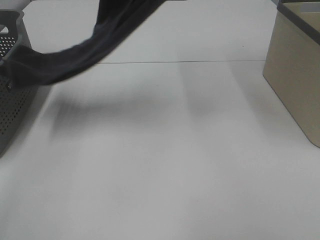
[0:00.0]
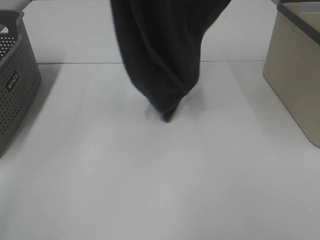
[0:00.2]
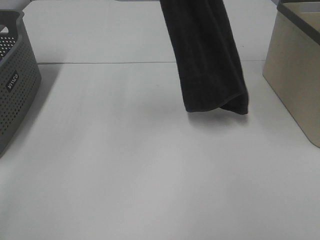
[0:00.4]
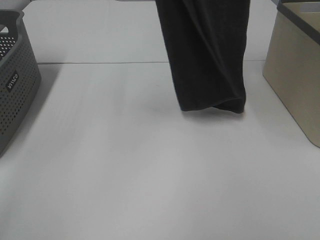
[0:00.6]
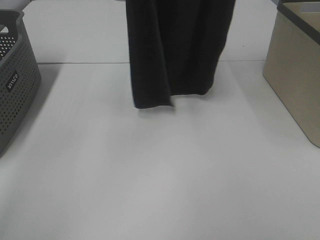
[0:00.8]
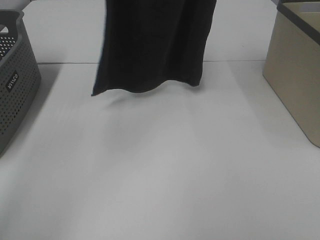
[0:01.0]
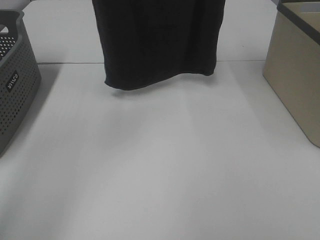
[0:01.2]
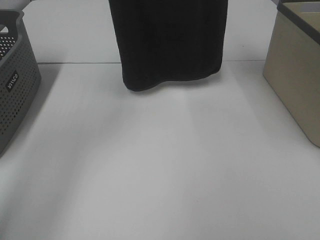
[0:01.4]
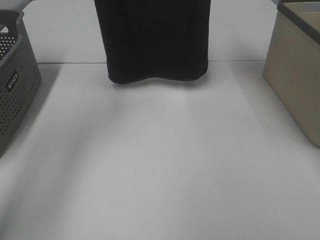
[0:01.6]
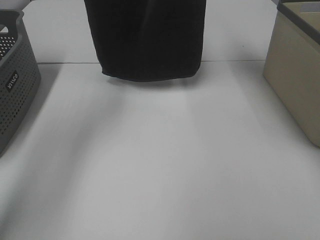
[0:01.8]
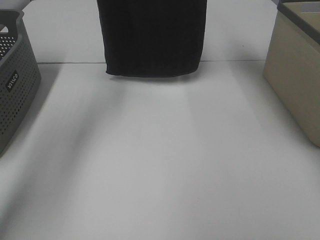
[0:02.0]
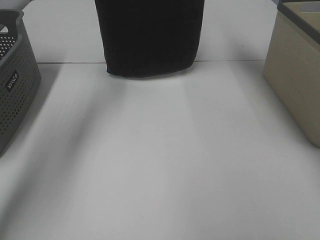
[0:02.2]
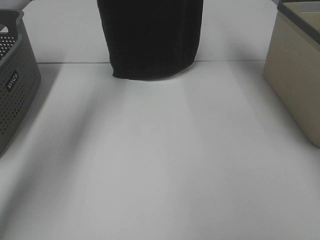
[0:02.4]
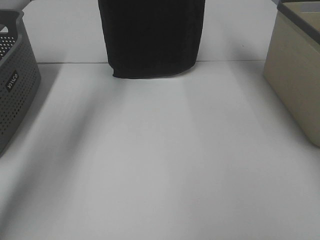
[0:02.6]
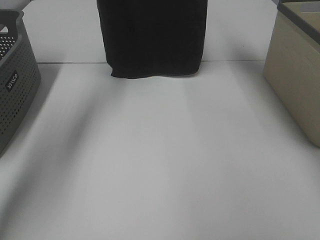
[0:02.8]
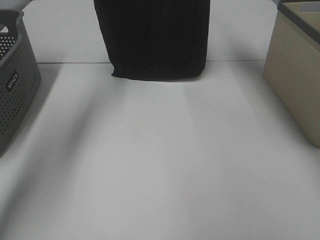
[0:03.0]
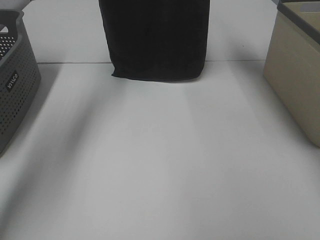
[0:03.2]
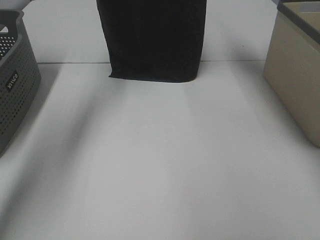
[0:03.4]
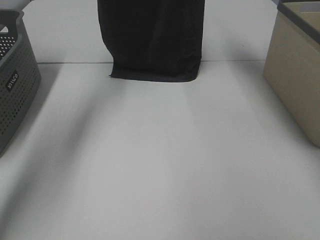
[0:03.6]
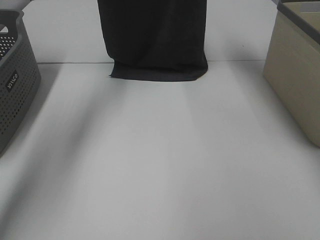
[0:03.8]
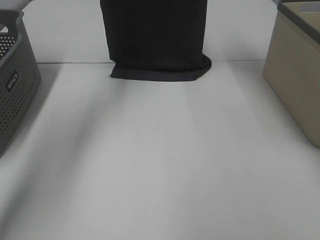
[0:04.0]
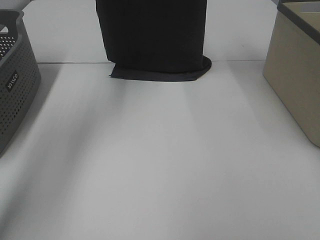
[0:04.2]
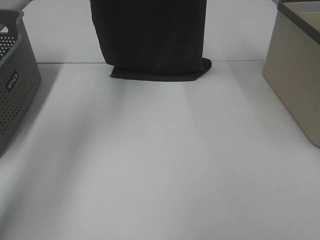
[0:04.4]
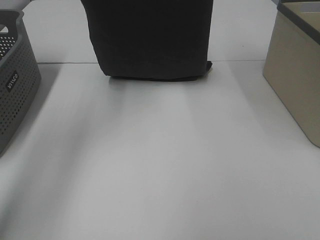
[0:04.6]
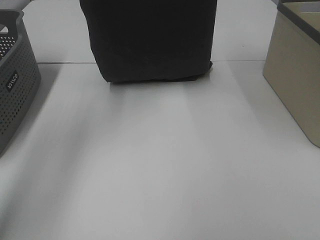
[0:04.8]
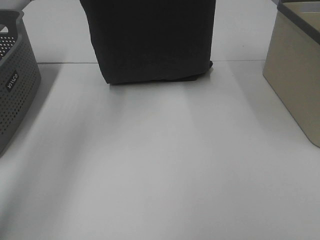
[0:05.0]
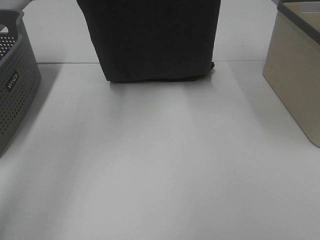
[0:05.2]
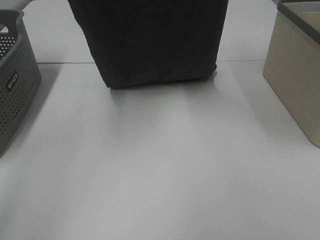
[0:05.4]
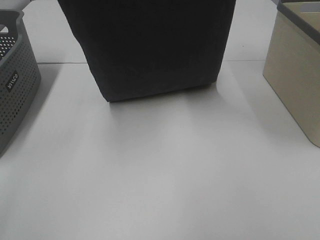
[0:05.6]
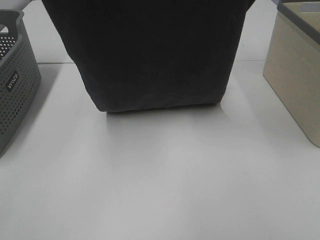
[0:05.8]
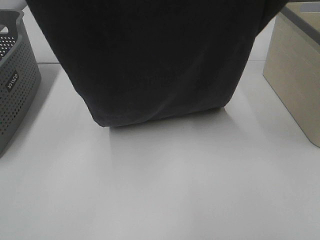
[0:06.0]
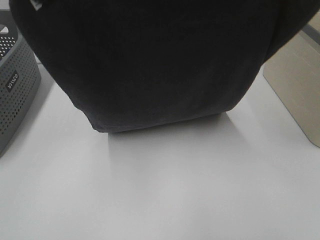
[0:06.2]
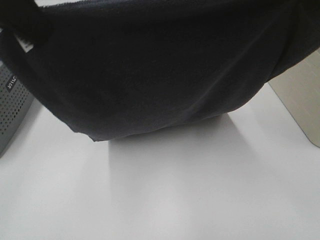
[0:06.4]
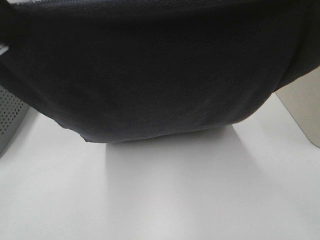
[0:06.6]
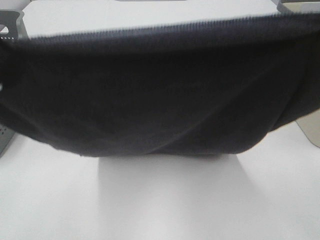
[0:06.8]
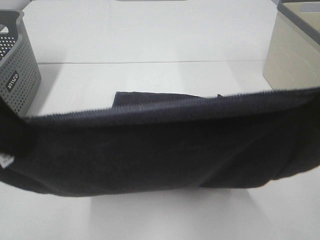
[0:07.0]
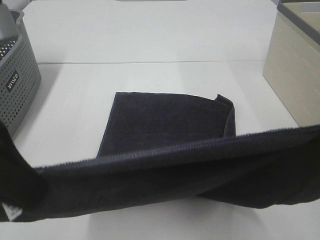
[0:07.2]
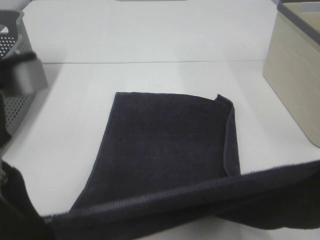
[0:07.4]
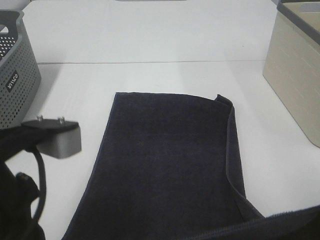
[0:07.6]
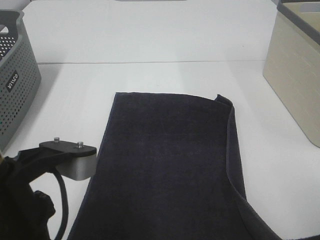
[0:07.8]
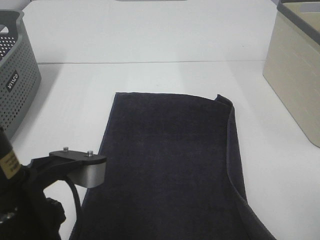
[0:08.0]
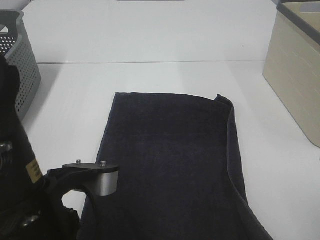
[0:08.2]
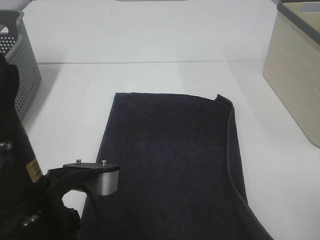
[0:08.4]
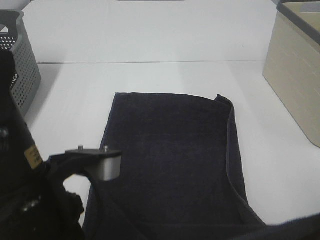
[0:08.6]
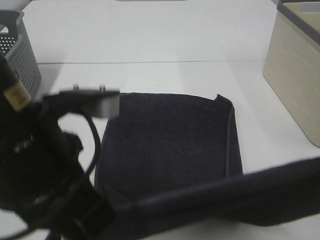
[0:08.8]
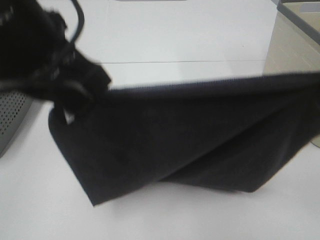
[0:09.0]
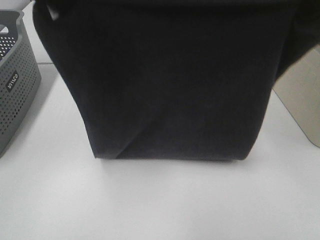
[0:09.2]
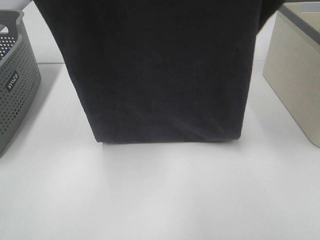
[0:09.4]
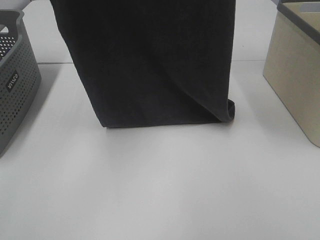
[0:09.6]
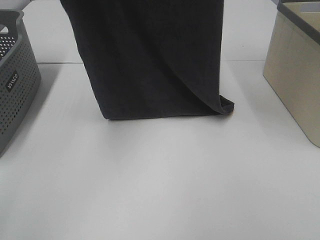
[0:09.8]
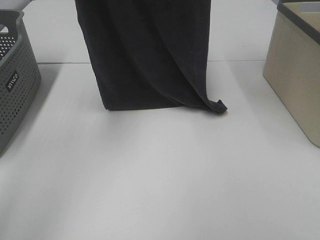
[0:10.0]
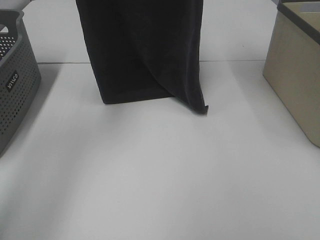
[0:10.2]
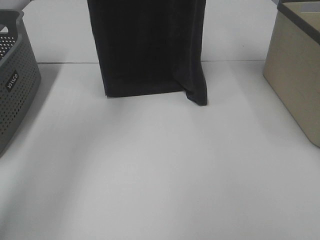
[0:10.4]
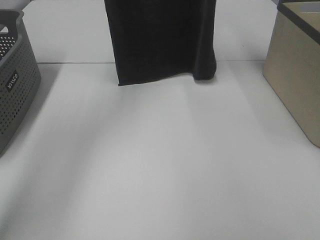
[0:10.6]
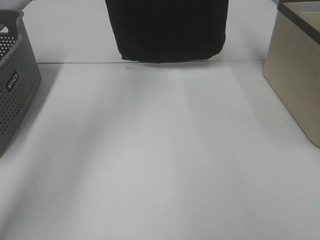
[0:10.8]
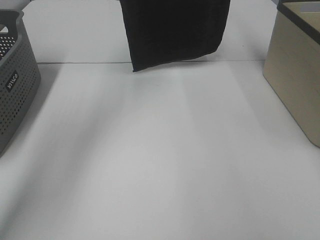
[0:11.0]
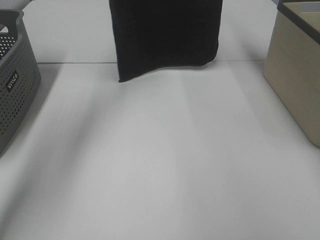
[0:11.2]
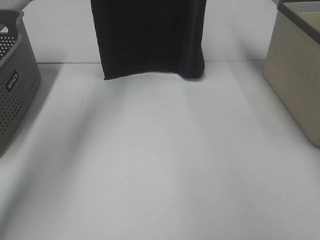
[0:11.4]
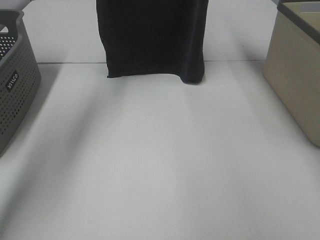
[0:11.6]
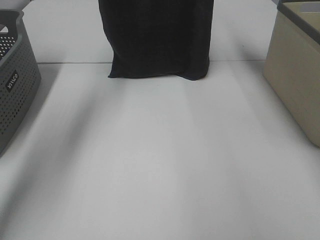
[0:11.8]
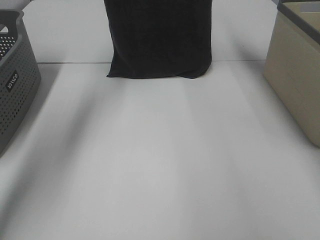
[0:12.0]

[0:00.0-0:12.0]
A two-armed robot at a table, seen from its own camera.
Task of the whole recording: Remove the towel and place it.
0.0 to 1.6 s: The right gripper travels forward by approximately 10 cm; the left gripper shifts roughly 15 cm forward and to the left.
1.6 to 3.0 s: The left gripper travels forward by approximately 5 cm. Meanwhile the right gripper changes place by roughly 5 cm.
3.0 to 4.4 s: The grippers both shift backward by approximately 5 cm.
4.4 to 6.0 s: Both grippers travel together backward, approximately 20 cm.
6.0 to 7.6 s: Both grippers move downward and backward, some 25 cm.
7.6 to 9.0 s: The grippers both shift upward and forward by about 10 cm.
9.0 to 10.4 s: The two grippers go approximately 30 cm forward and upward.
10.4 to 12.0 s: Both grippers move forward, some 5 cm.

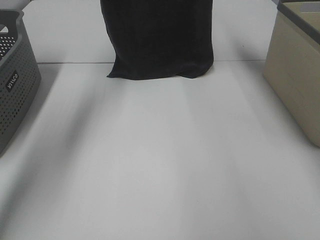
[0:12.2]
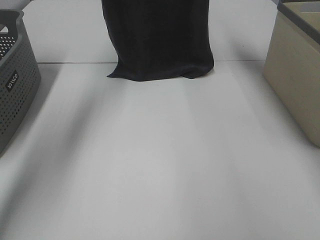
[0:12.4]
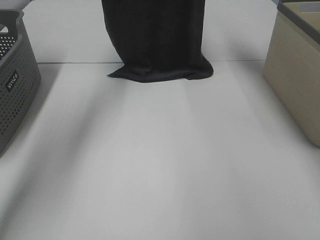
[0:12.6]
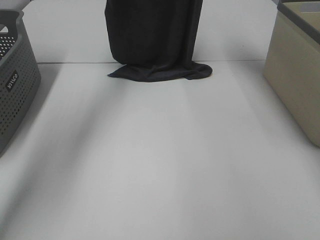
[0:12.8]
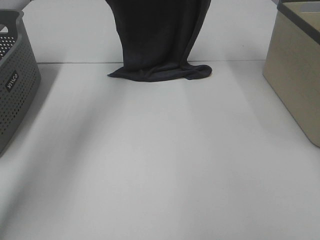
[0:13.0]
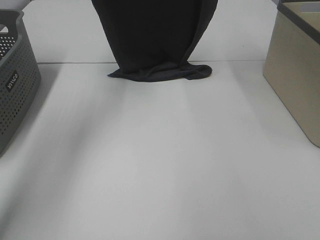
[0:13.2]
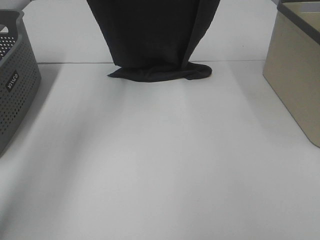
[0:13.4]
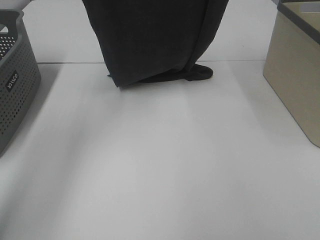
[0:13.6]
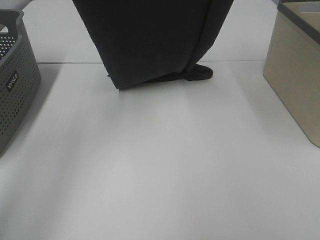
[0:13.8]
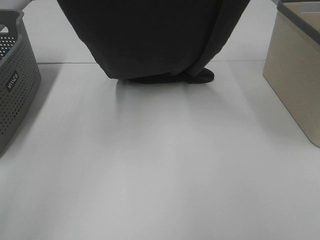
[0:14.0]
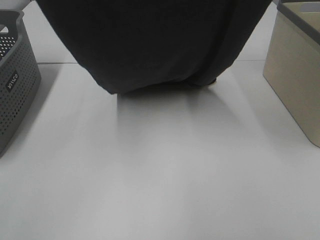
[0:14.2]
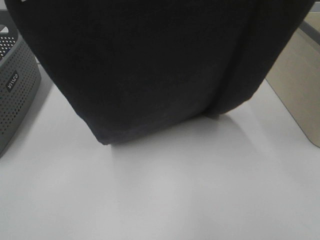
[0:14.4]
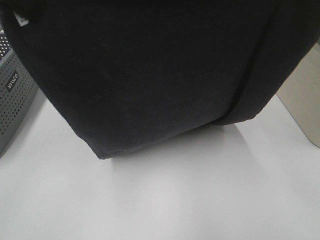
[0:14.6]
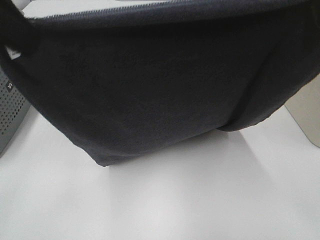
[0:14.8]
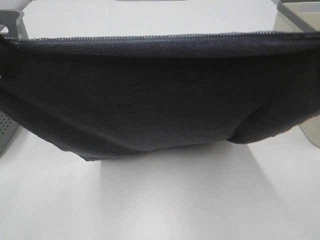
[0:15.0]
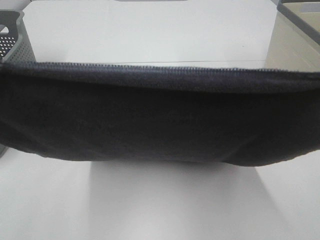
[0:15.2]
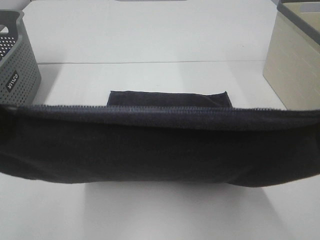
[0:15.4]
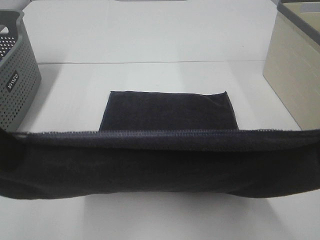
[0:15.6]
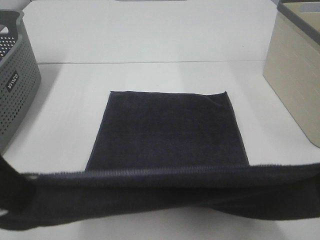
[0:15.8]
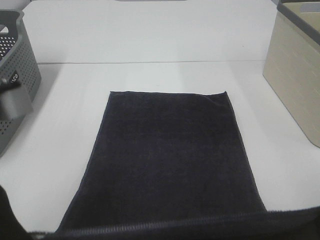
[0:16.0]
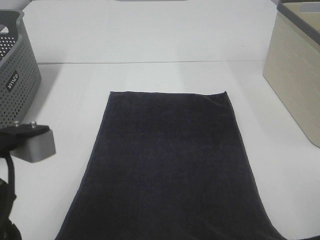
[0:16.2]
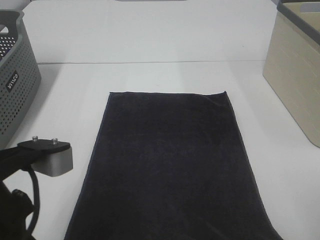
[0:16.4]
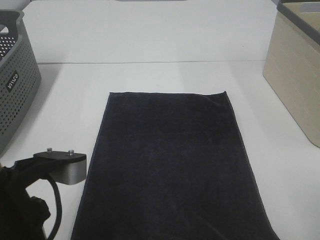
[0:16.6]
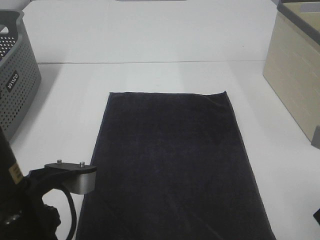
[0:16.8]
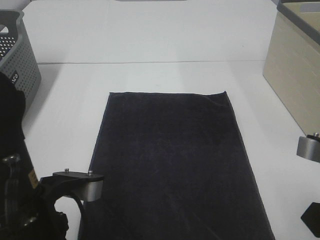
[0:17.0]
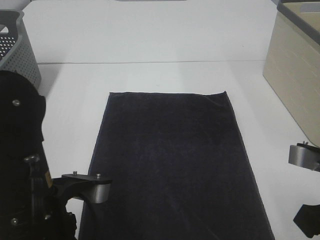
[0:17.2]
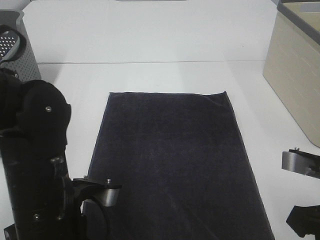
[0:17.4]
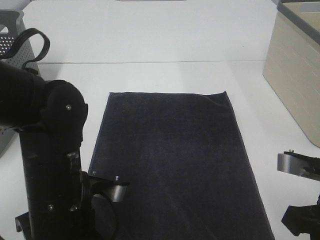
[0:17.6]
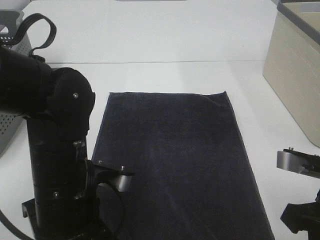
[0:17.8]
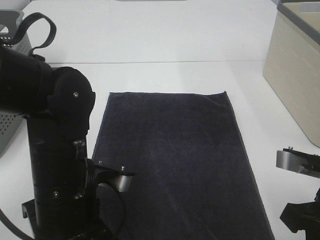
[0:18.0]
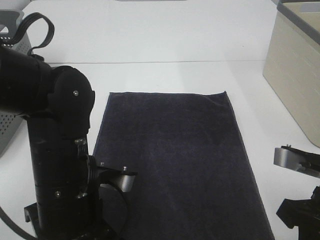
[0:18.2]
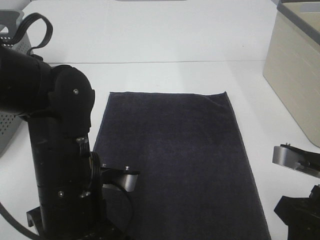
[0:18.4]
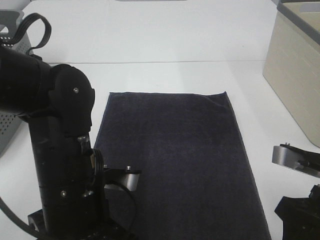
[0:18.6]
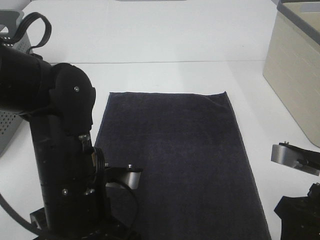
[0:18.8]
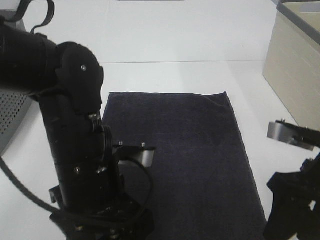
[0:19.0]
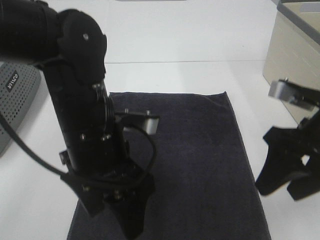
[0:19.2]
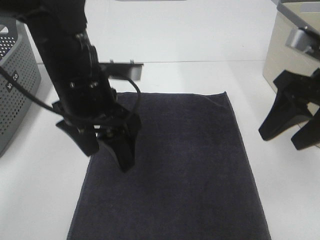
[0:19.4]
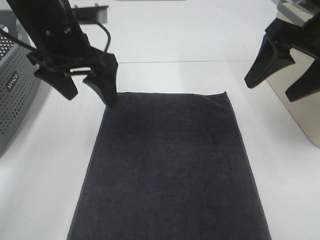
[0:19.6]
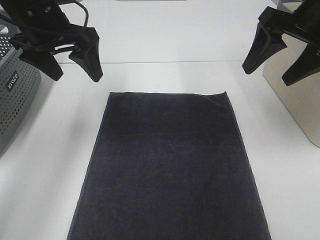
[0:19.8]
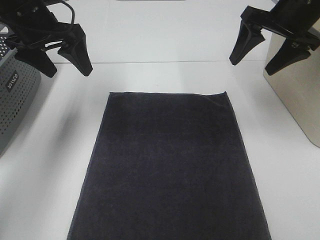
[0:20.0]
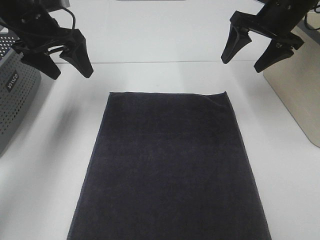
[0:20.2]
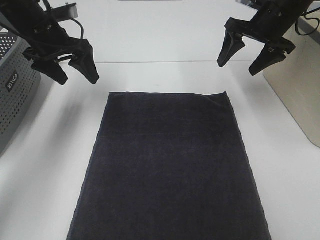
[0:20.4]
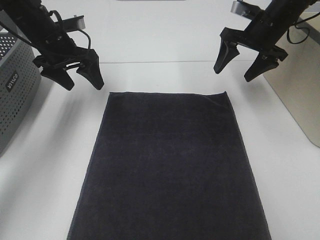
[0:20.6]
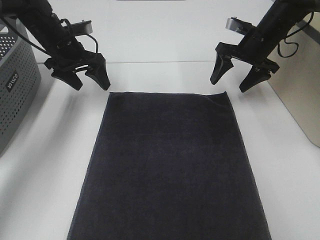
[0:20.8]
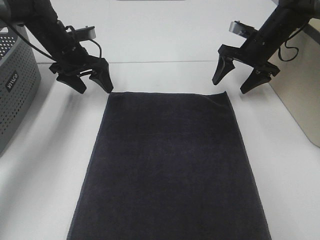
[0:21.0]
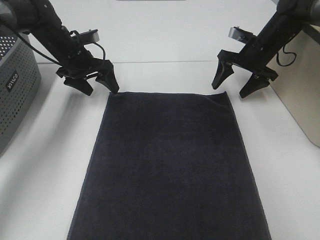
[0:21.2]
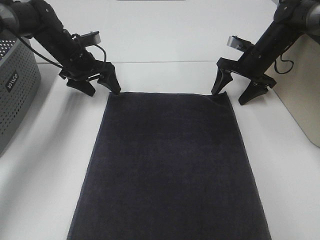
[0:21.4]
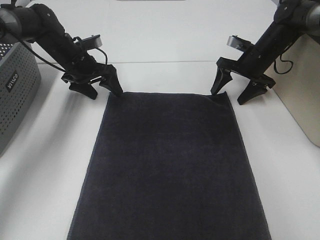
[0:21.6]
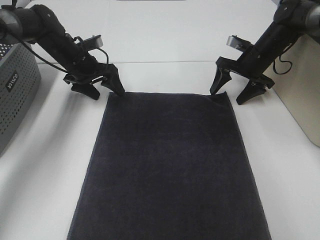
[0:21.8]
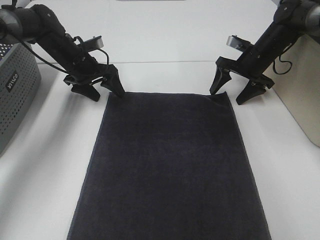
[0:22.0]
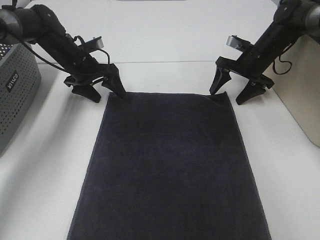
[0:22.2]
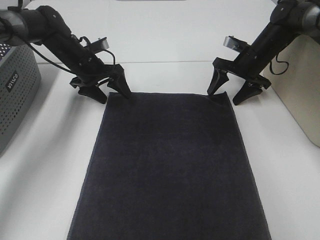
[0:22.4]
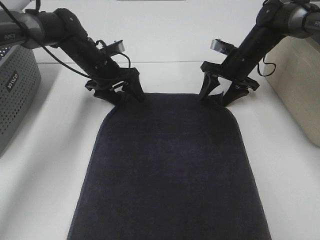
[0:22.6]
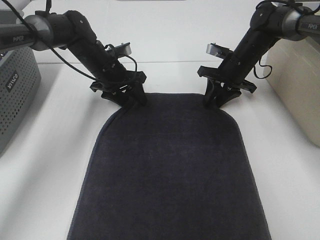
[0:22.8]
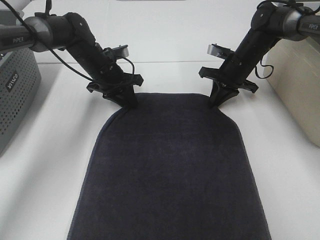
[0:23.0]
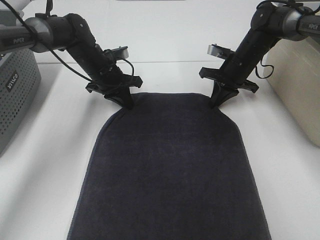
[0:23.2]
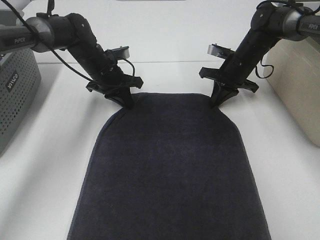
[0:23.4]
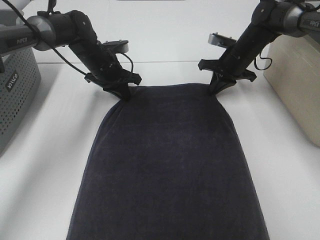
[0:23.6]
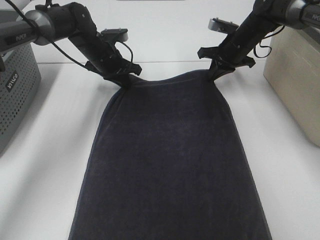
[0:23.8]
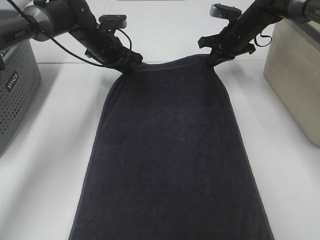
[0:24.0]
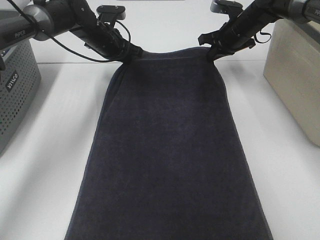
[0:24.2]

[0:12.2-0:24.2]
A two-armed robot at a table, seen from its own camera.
Task of the whole recording: Remove the towel and place it.
Step, 12.6 to 22.0 s: Left hand:adjust the gray towel.
Step, 12.6 to 22.0 s: Right hand:adjust the gray towel.
12.2 to 13.8 s: Both grippers travel together backward, about 15 cm.
13.8 to 15.2 s: The grippers both shift backward by some 25 cm.
15.2 to 16.6 s: The grippers both shift downward by some 15 cm.
16.6 to 18.2 s: Both grippers travel together downward, approximately 5 cm.
18.2 to 19.8 s: The left gripper moves forward, upward and to the left, roughly 25 cm, and opens up, while the right gripper heads forward and upward, covering approximately 25 cm, and opens its fingers.
19.8 to 21.2 s: The left gripper is displaced downward and forward by some 20 cm. Meanwhile the right gripper goes some 25 cm forward and downward.
21.2 to 22.6 s: The left gripper goes roughly 5 cm to the right.
22.6 to 24.2 s: The right gripper is displaced upward and forward by approximately 5 cm, and closes; the left gripper moves forward, about 5 cm, and closes up.
